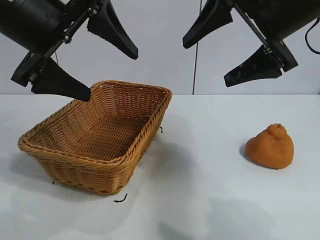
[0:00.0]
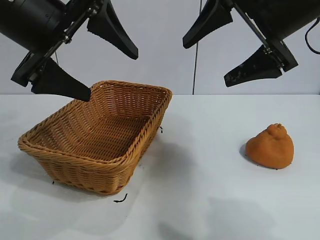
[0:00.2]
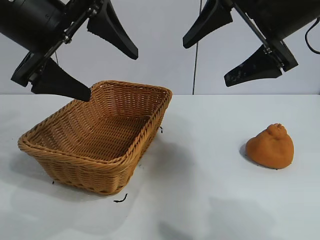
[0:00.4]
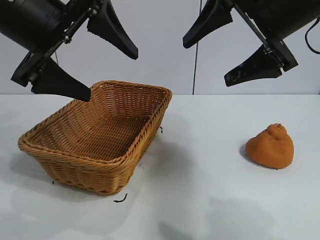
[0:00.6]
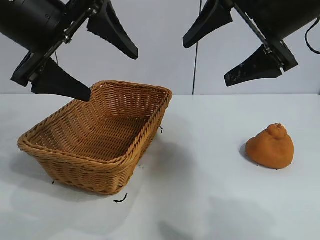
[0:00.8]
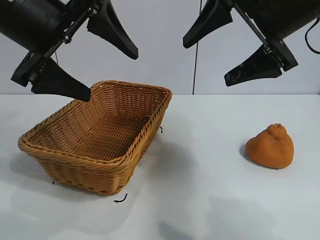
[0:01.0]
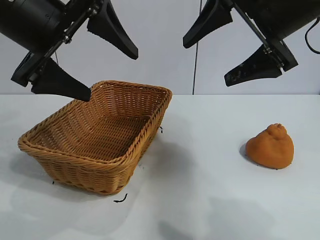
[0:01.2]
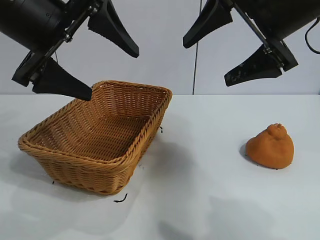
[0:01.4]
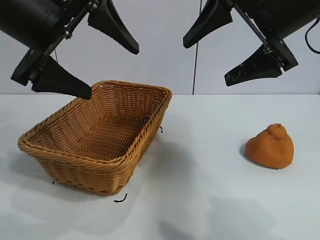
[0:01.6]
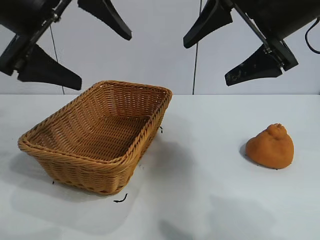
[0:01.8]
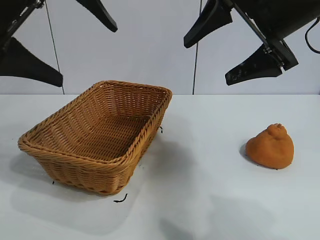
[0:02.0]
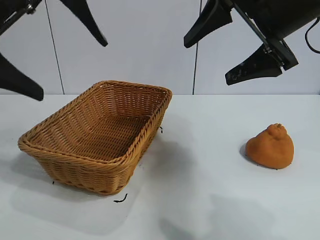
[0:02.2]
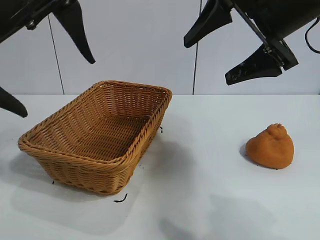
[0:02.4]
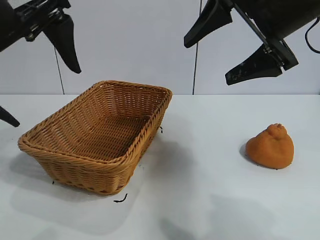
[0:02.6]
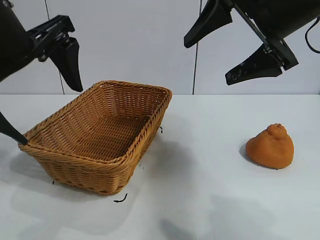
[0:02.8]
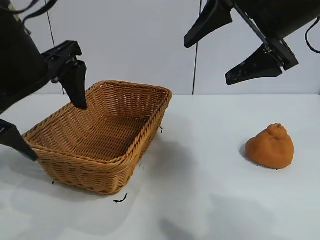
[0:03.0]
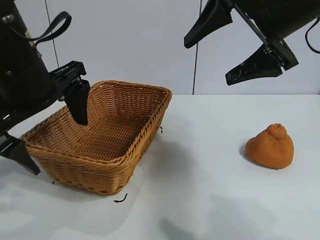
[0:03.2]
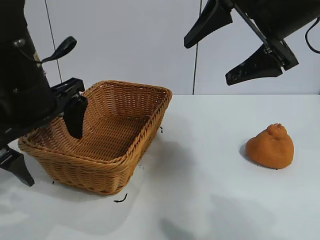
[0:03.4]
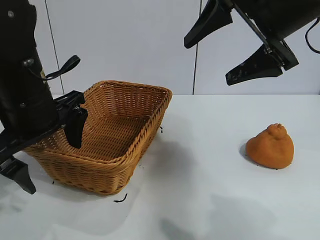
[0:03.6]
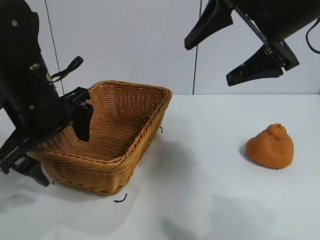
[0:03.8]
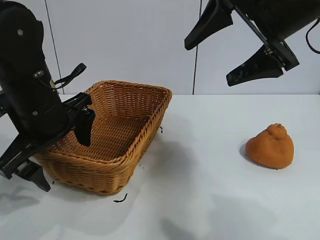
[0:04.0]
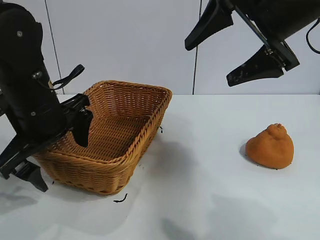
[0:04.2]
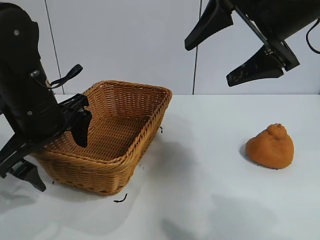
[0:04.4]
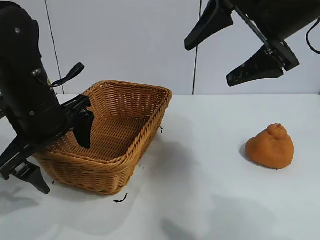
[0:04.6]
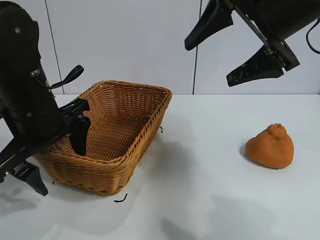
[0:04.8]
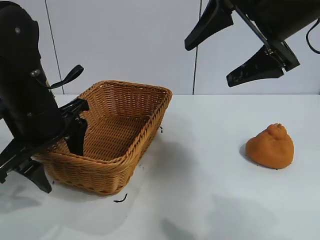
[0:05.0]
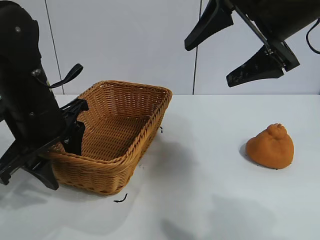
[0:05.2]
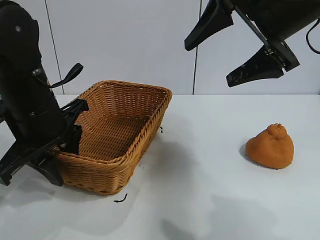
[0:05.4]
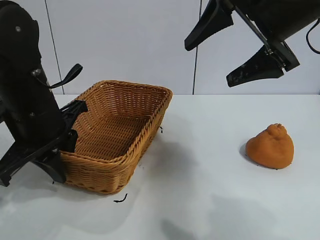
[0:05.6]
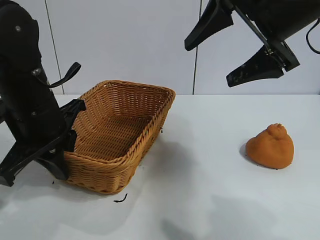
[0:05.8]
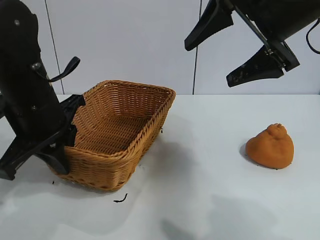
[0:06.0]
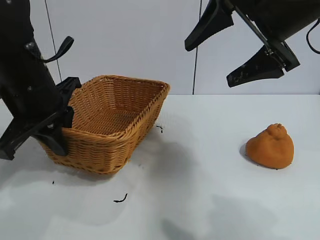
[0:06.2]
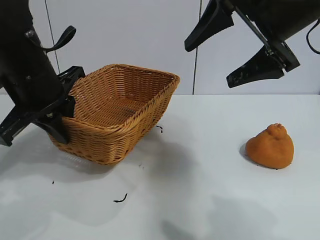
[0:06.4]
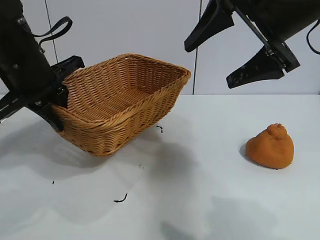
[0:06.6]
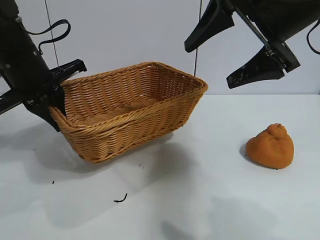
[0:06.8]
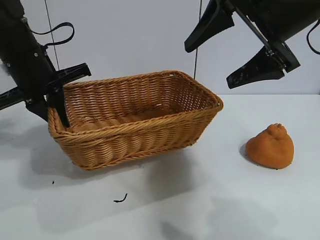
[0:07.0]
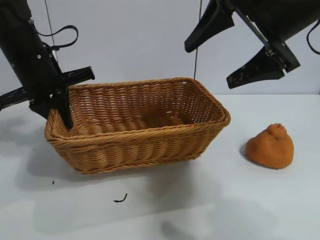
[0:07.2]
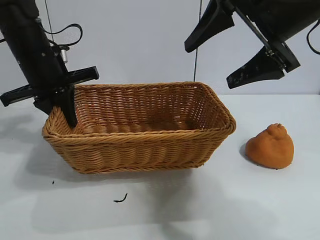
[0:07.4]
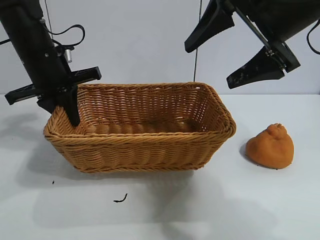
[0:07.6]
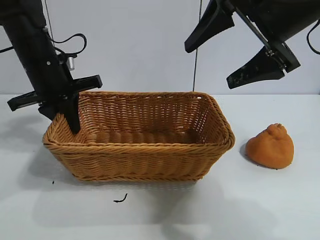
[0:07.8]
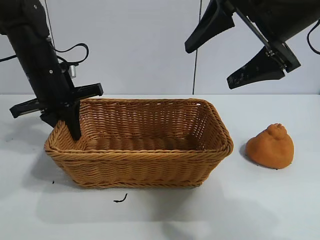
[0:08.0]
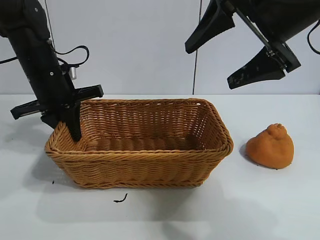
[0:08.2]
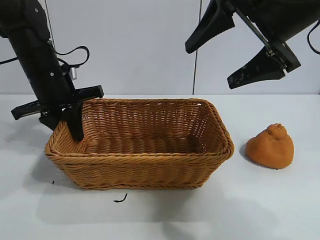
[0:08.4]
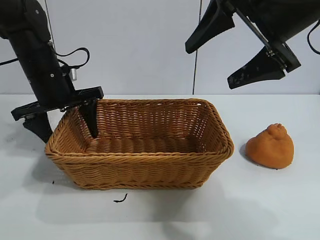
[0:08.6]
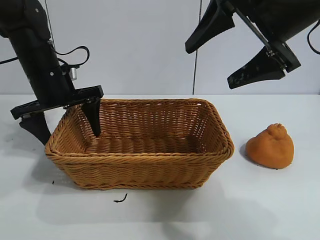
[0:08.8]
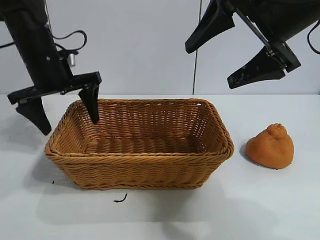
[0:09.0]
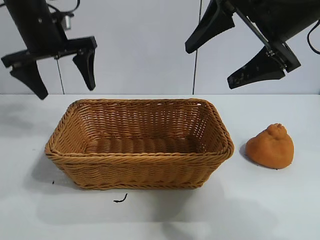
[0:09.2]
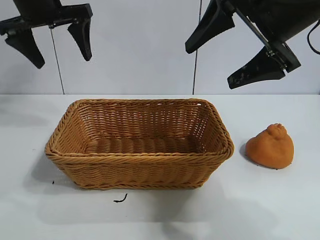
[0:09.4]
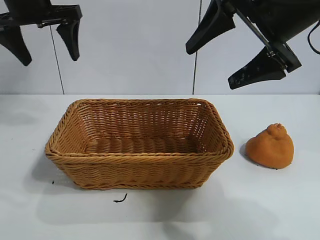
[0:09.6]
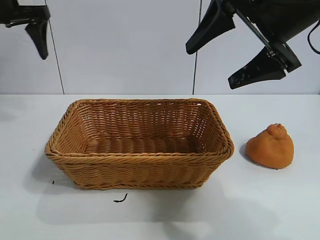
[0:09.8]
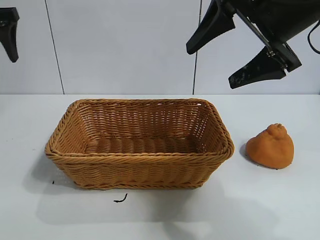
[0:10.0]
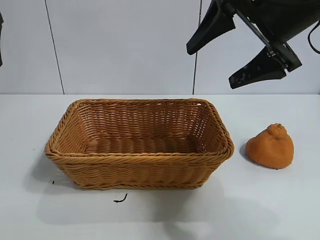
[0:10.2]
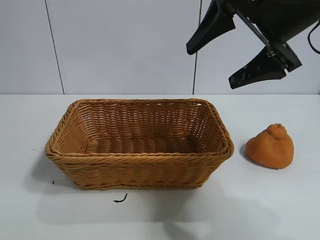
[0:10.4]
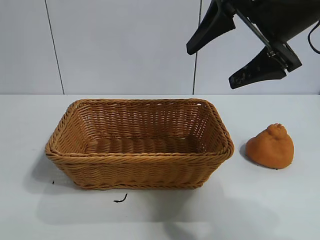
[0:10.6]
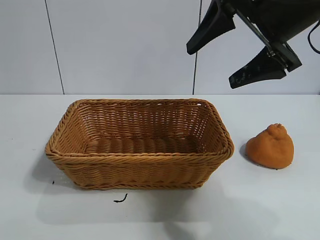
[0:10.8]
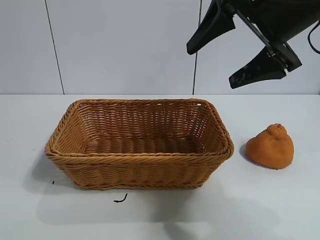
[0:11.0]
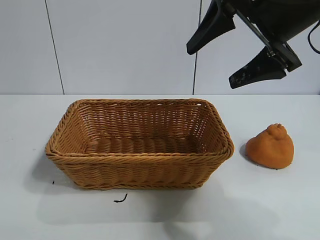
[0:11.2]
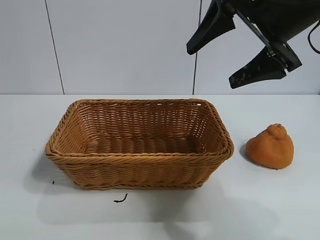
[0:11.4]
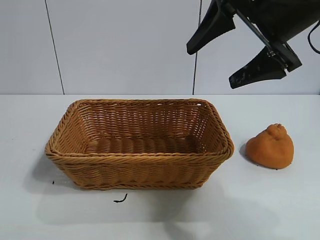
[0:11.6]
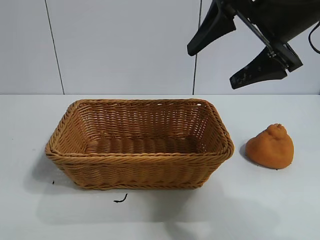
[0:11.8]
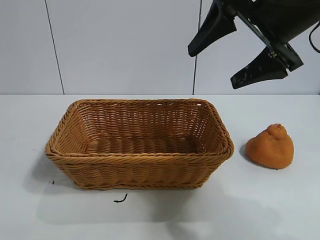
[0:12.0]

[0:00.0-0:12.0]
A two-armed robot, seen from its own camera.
Task of the whole recording: pick up the orange and put it into the basket.
Step, 0:01.4 to 0:05.8: Grasp the basket with left gripper.
Step, 0:06.0 to 0:08.8: Place the basket in the center of view with left gripper.

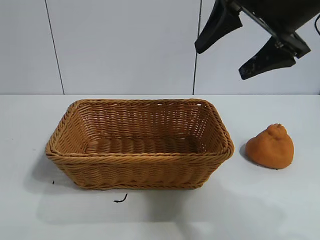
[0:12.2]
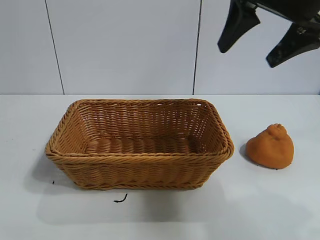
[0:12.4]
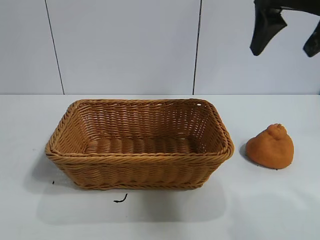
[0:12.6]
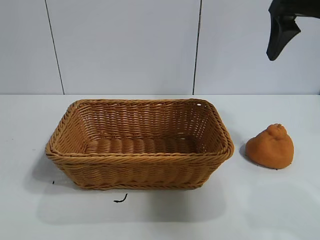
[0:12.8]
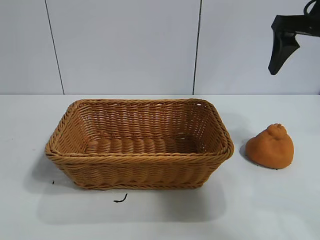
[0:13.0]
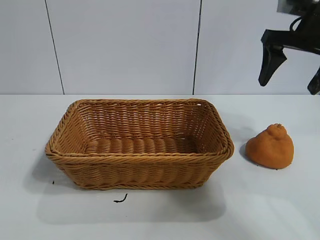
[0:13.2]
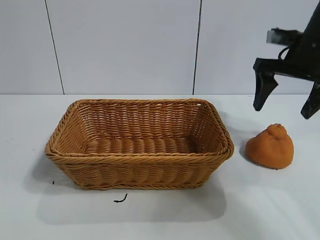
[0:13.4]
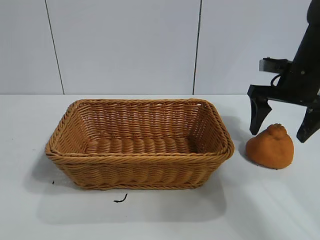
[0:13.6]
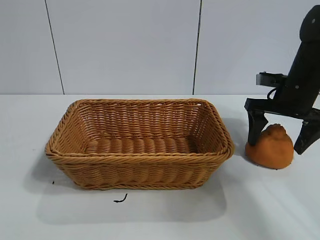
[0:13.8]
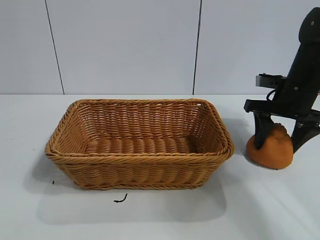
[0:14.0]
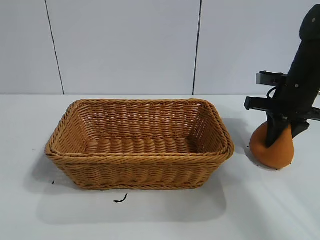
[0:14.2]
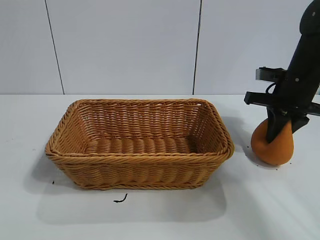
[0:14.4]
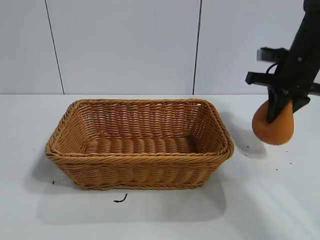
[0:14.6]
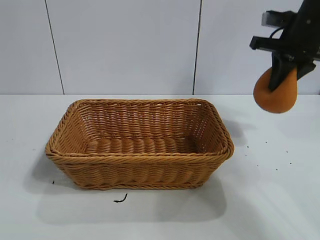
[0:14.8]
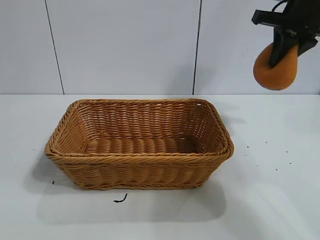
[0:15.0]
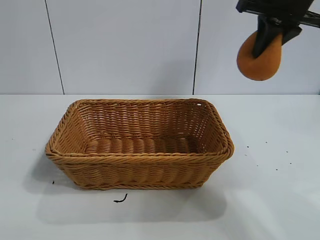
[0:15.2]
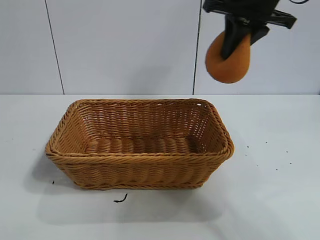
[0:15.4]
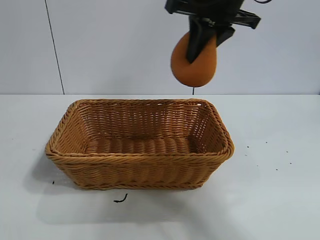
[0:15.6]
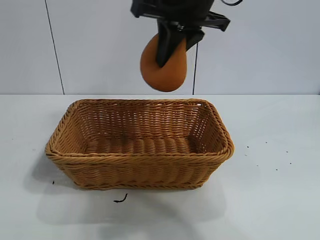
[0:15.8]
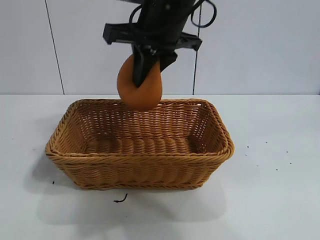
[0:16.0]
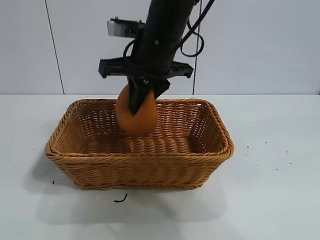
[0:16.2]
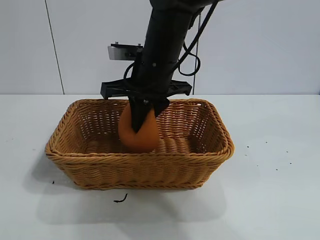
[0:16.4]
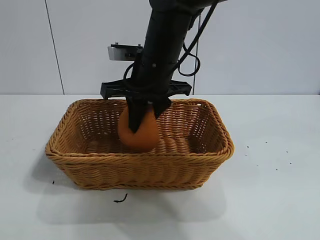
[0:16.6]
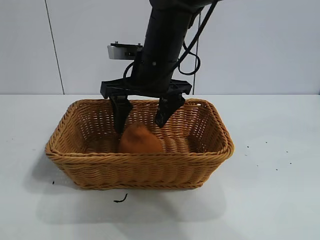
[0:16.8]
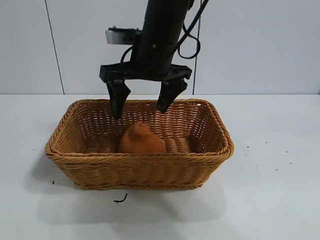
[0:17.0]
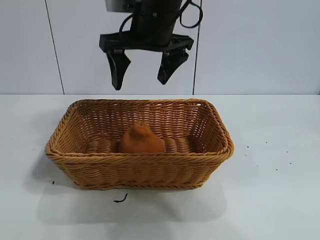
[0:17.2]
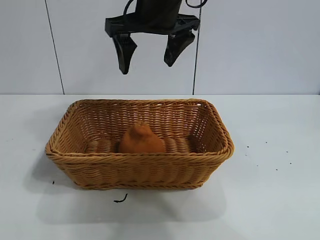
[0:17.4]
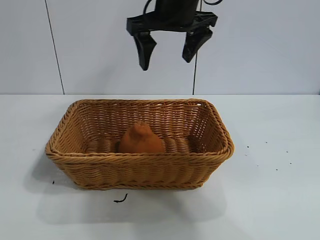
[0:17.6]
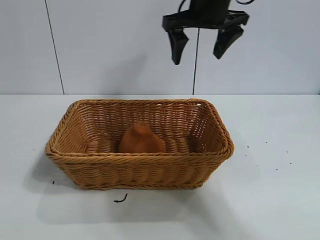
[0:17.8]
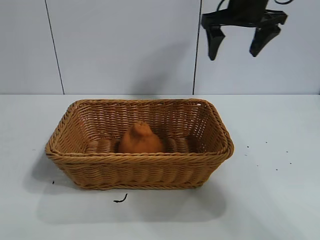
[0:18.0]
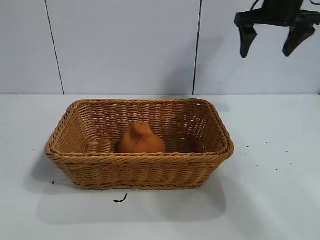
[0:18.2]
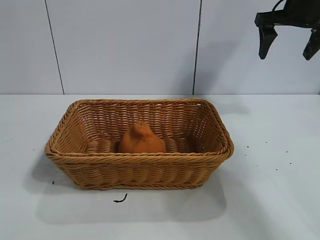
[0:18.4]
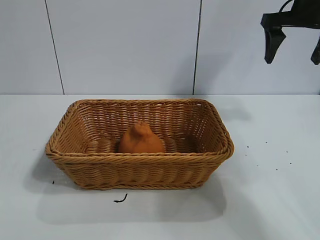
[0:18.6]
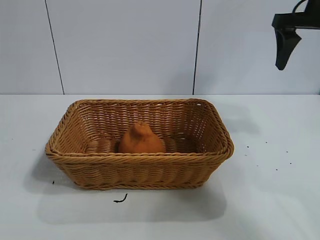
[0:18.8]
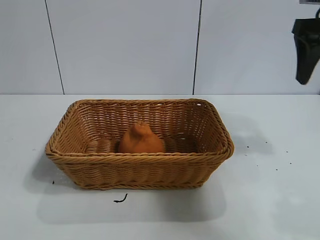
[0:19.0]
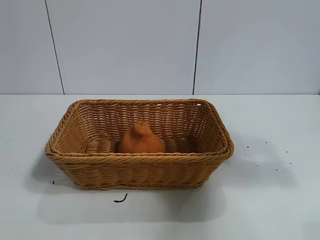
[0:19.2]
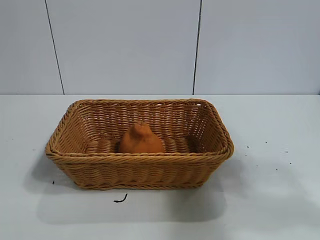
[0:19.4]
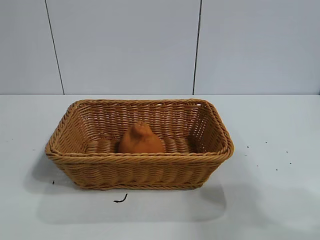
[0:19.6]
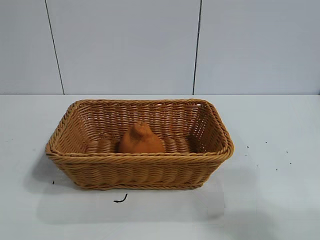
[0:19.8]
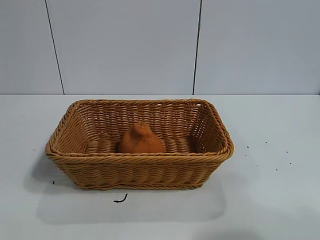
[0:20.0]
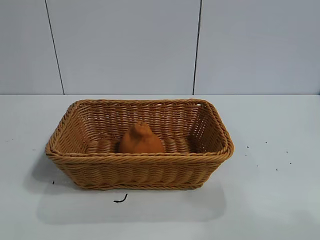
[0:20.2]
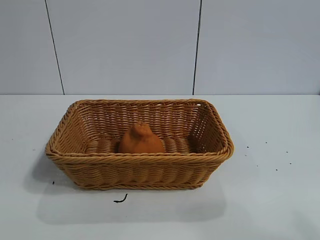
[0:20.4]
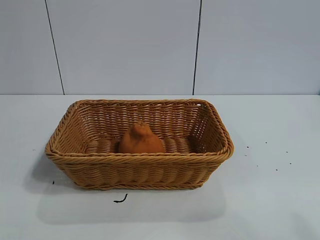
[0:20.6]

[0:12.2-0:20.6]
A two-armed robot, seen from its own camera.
Task of the whole recording: pick up the orange and put it into the basket.
Step, 0:12.2 to 0:14.4: Grasp the orange with right gripper.
Step, 0:14.6 to 0:16.8: Place the orange in the basket with right gripper.
